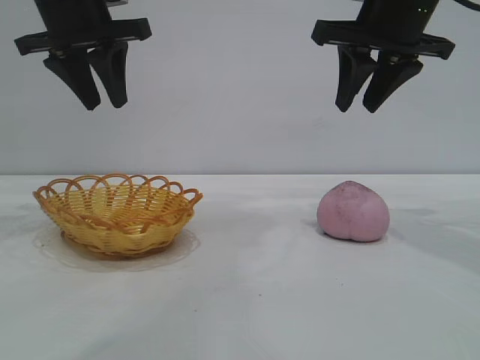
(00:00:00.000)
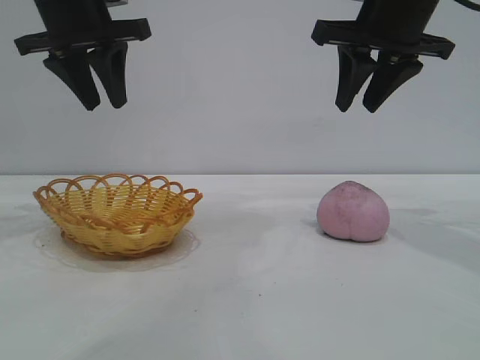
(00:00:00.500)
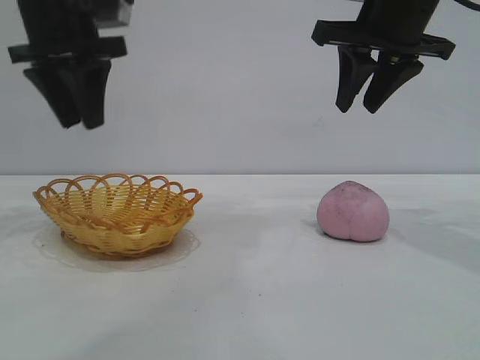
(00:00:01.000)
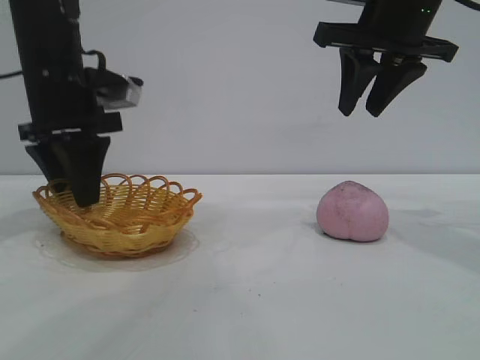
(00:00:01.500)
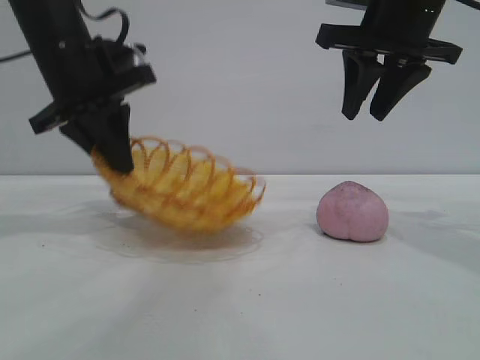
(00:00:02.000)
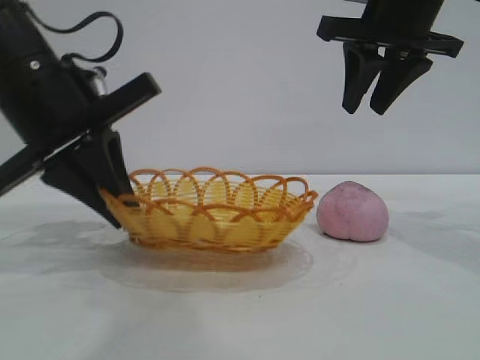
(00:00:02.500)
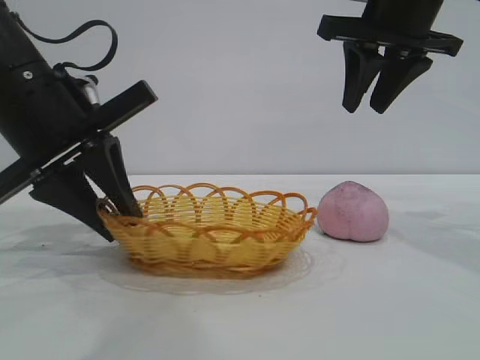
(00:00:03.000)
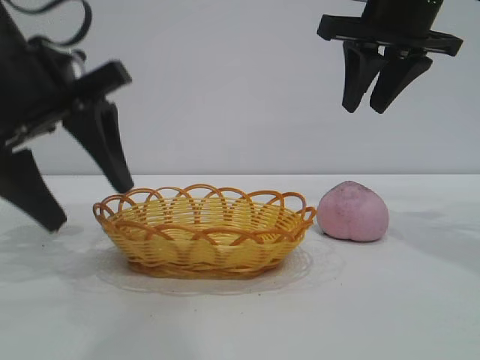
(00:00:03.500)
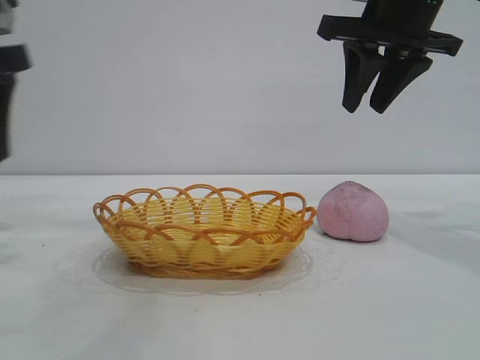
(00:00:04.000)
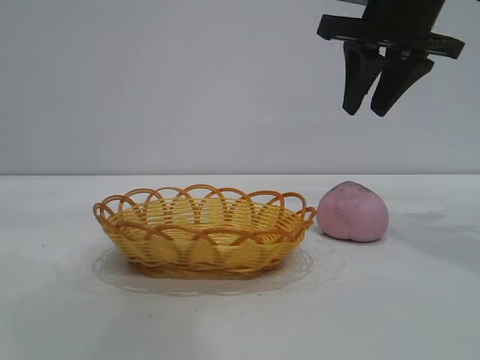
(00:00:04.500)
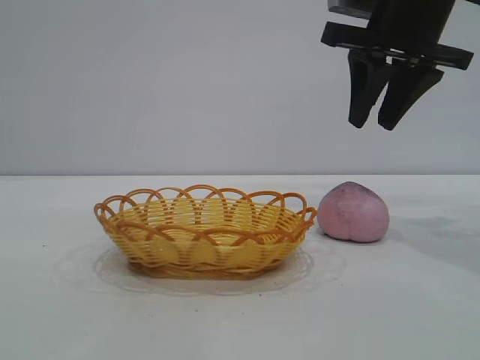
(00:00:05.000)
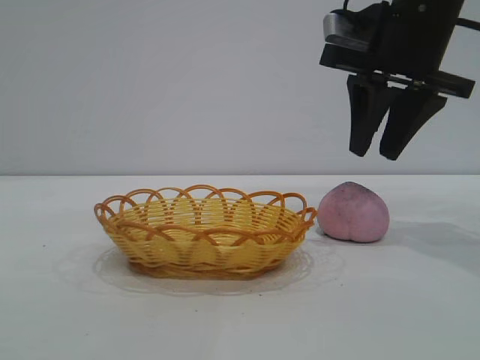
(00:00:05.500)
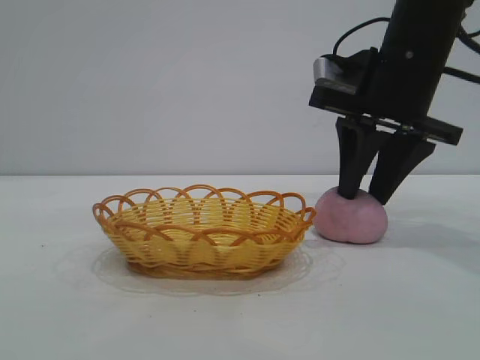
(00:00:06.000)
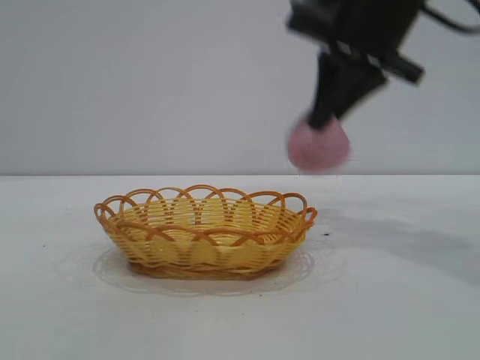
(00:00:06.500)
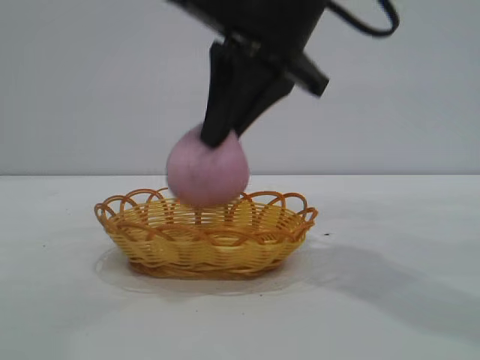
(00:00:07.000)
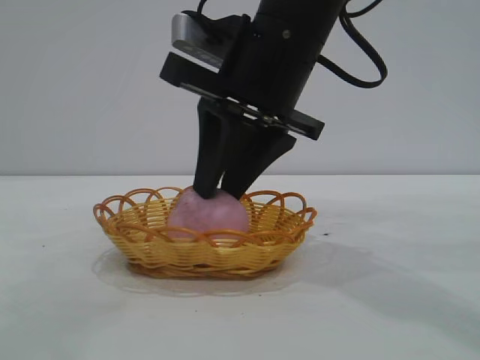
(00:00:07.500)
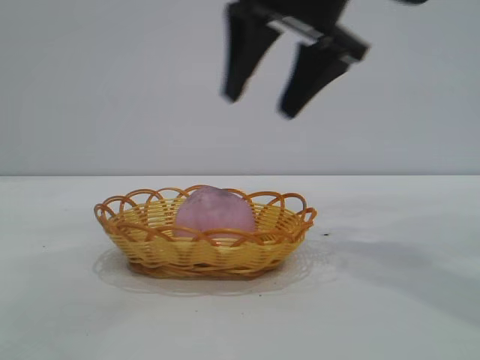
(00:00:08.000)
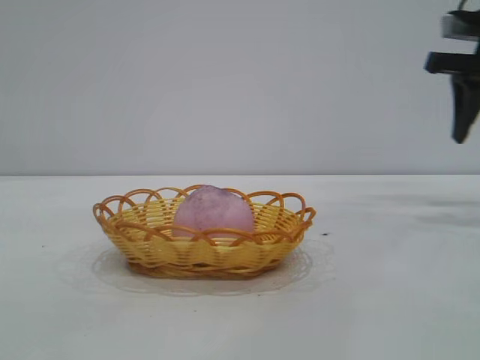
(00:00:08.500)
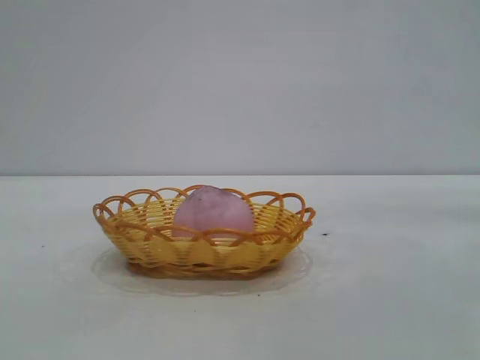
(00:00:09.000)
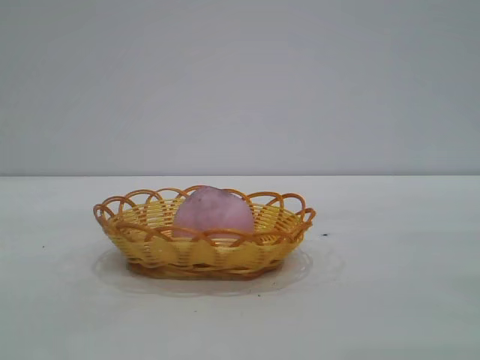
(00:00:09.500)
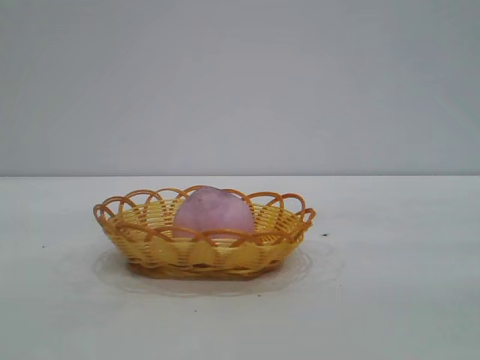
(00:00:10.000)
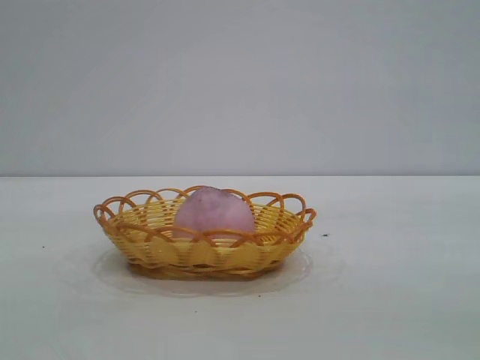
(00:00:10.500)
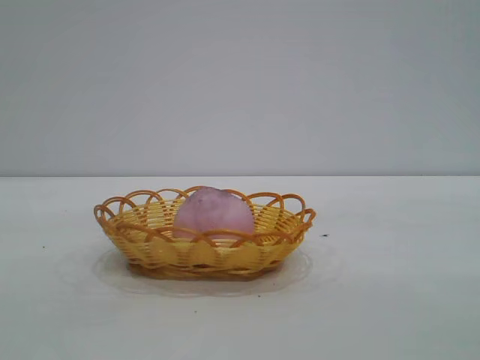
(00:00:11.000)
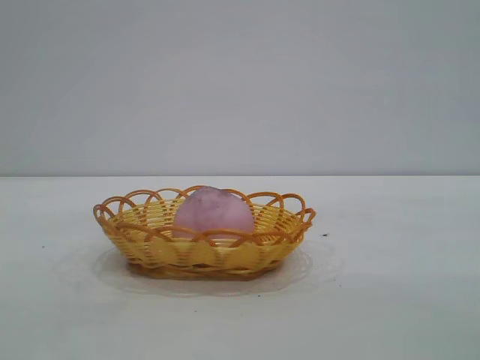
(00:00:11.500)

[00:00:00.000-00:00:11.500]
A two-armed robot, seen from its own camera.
Task of the whole recording: pick up the peach and put it into the basket.
Step, 00:00:00.000 to 00:00:03.500: Move the basket to the center of view.
Step, 00:00:04.000 to 00:00:06.000: Pick up the peach.
Step, 00:00:06.500 to 00:00:08.000: place the peach into the basket.
